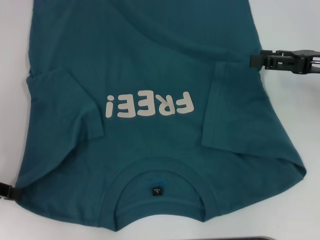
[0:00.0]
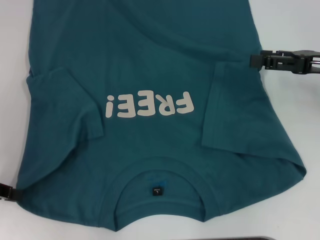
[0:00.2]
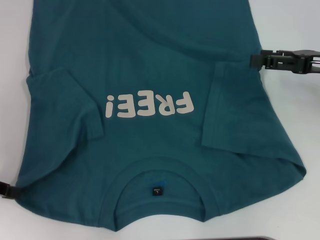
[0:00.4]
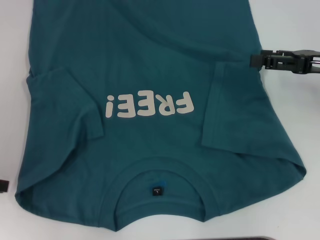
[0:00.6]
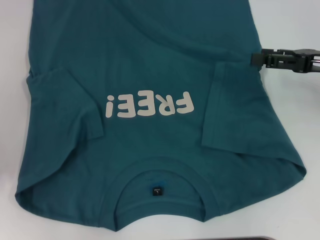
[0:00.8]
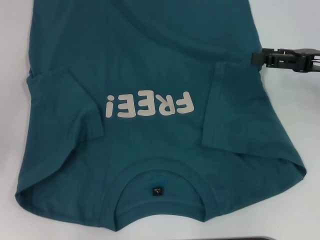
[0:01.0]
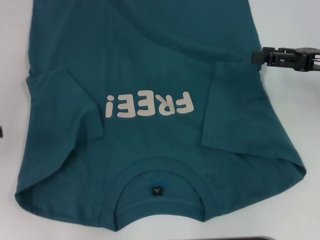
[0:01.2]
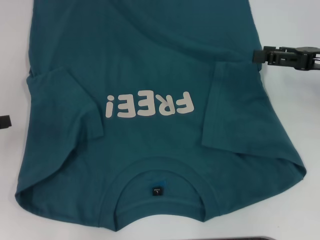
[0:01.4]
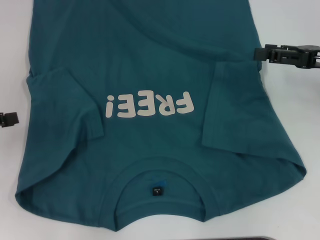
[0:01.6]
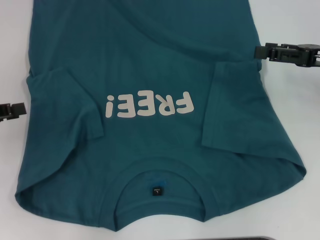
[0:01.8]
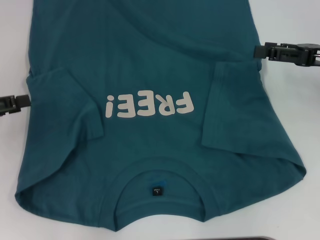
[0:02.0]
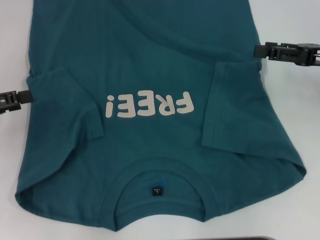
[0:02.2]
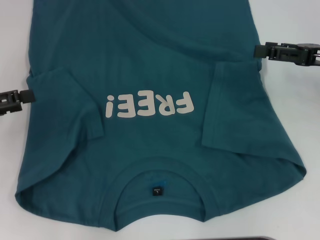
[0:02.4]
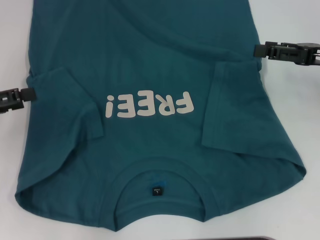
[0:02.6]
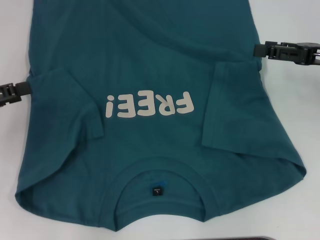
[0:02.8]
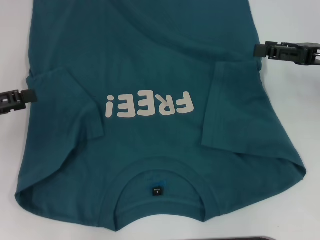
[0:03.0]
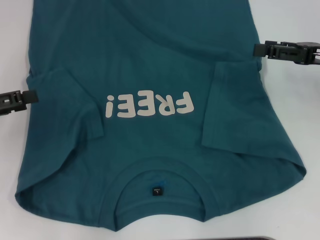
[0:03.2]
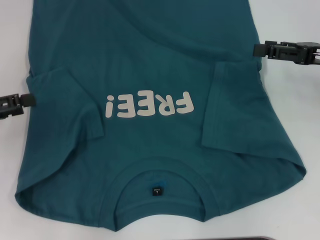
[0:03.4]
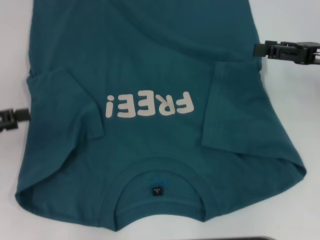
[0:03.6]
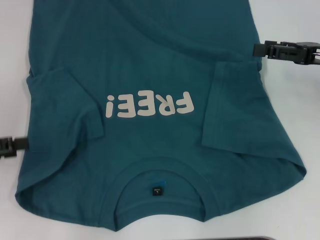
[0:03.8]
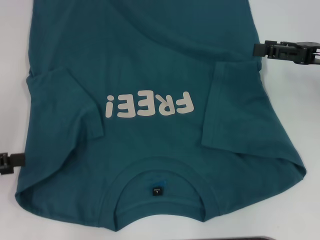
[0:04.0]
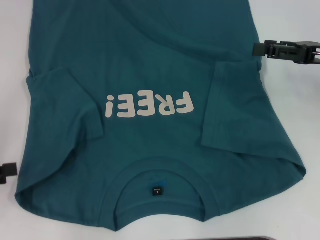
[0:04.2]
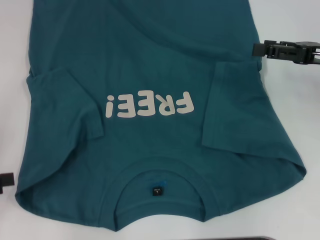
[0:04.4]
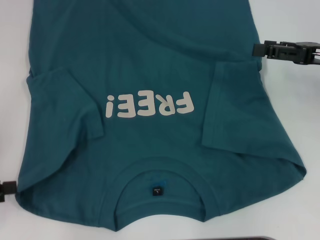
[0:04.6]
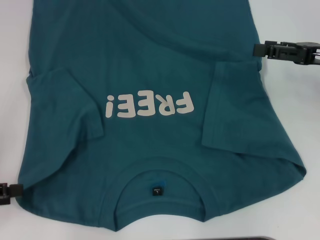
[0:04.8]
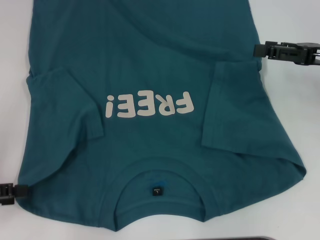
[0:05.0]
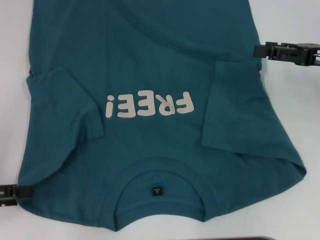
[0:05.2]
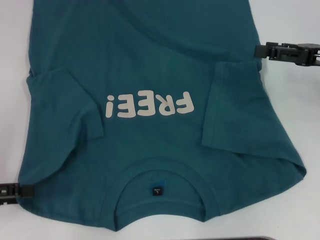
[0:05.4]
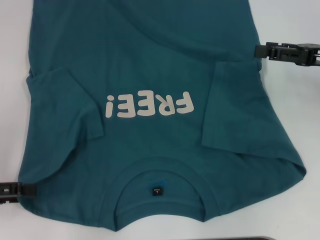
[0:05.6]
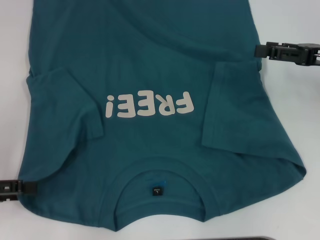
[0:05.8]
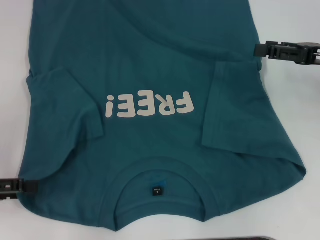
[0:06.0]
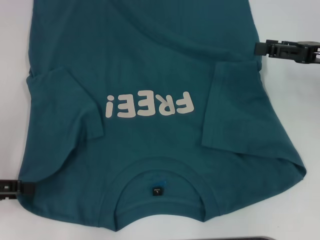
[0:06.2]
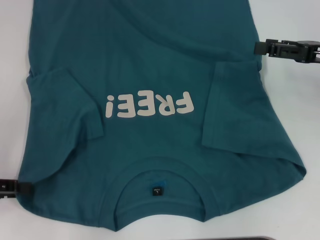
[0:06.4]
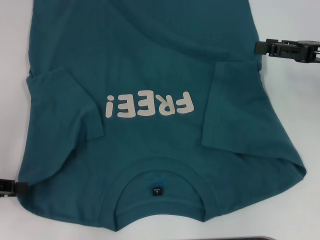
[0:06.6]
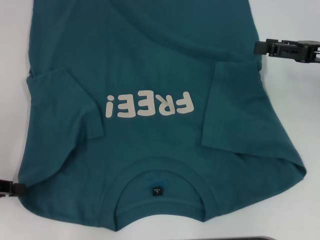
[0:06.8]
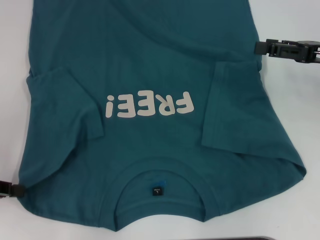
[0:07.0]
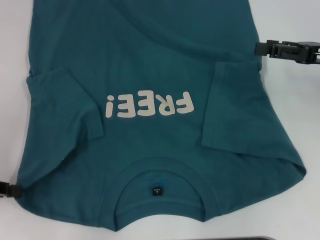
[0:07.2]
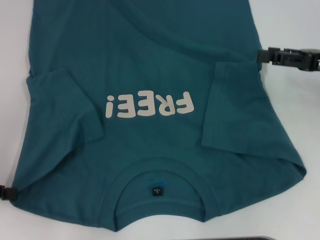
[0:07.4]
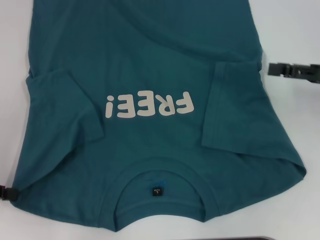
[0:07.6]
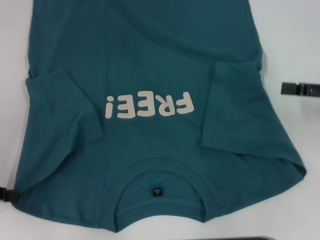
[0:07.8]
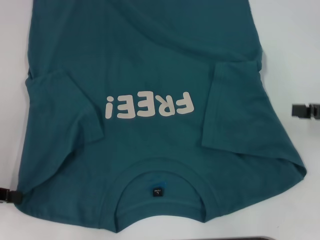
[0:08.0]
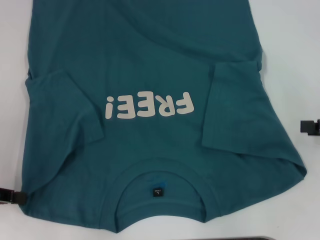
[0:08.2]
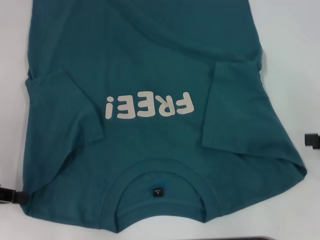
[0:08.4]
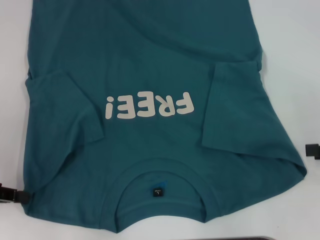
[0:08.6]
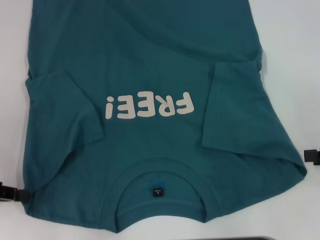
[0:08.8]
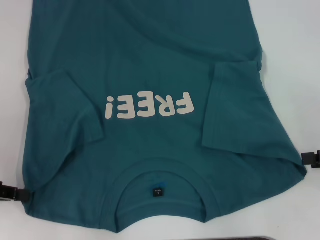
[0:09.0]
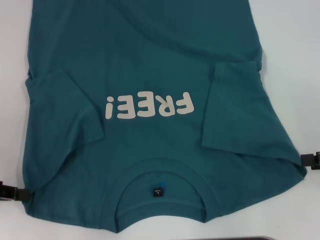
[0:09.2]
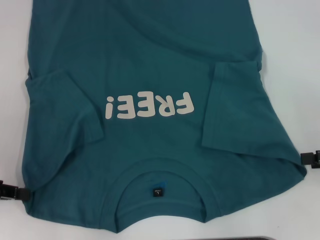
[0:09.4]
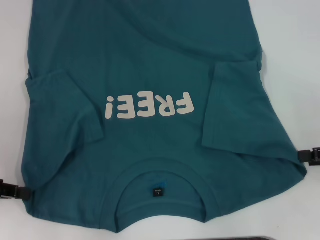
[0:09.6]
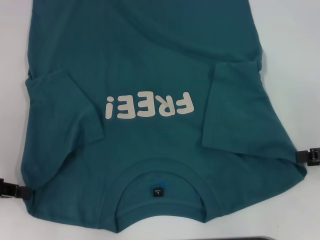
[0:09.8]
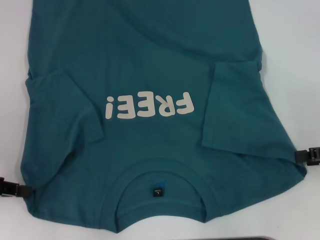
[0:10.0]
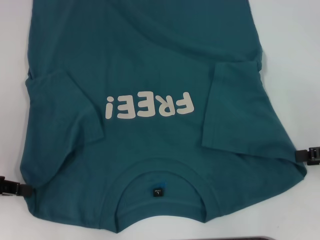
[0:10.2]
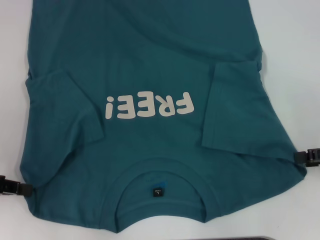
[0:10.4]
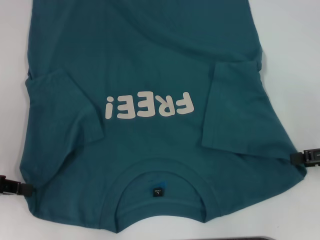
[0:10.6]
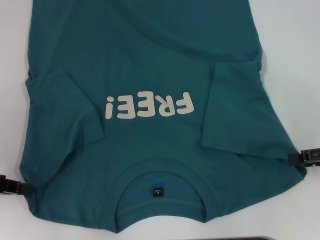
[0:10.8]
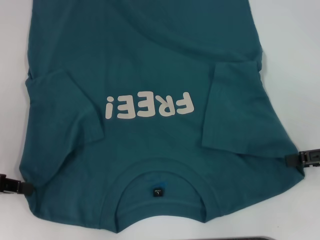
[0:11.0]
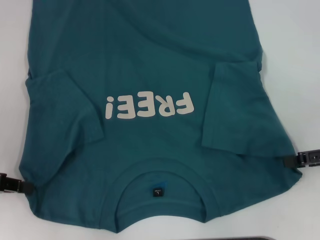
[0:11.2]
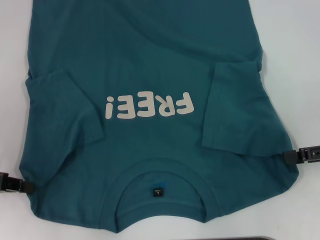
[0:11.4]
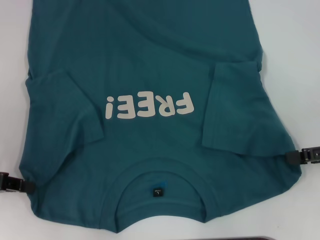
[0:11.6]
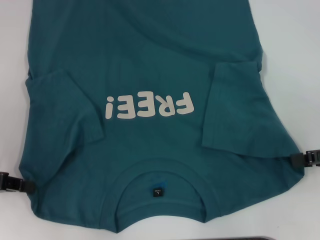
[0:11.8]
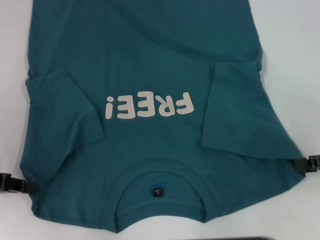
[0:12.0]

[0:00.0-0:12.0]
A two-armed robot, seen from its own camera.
Step, 0:00.0 to 0:07.2: Grab the bottom left corner with your left hand.
0:01.6 to 0:03.0: The left gripper opens up.
0:03.0 to 0:04.4: The left gripper travels backward by approximately 5 cm.
0:04.4 to 0:06.0: The grippers stay close to where they were, moving slightly.
0:06.0 to 0:07.6: The left gripper closes up.
0:07.6 to 0:09.0: The right gripper travels backward by about 5 cm.
0:09.0 to 0:12.0: There are only small adjustments of the grippers.

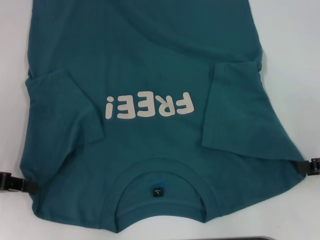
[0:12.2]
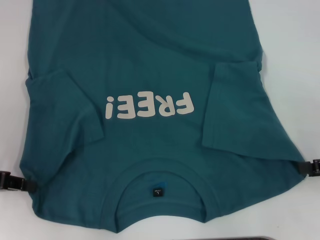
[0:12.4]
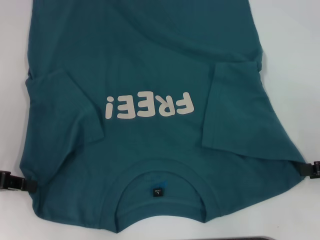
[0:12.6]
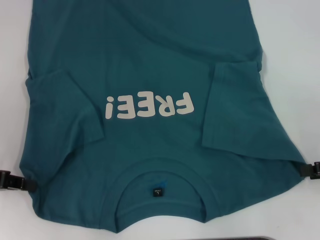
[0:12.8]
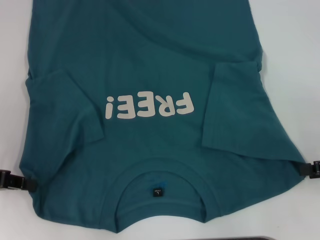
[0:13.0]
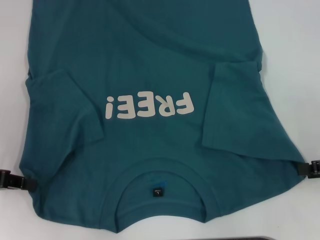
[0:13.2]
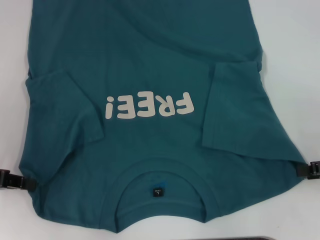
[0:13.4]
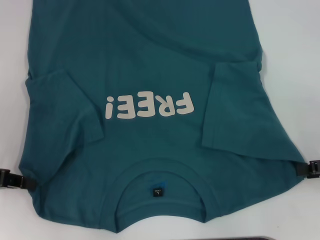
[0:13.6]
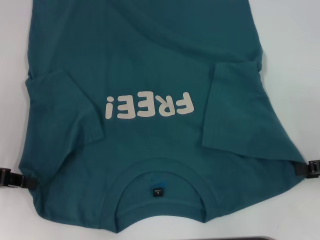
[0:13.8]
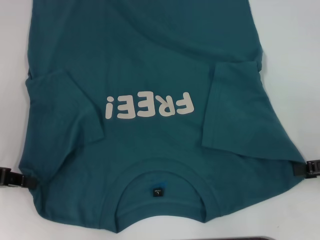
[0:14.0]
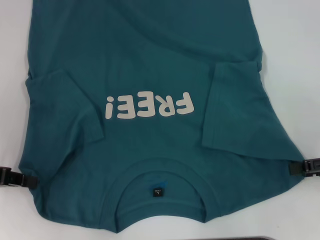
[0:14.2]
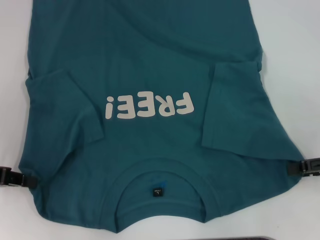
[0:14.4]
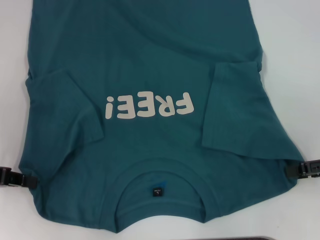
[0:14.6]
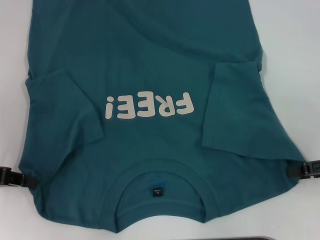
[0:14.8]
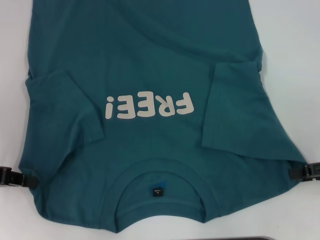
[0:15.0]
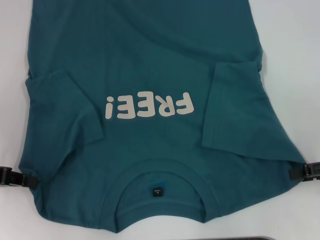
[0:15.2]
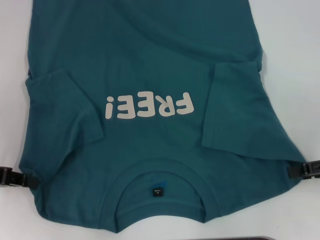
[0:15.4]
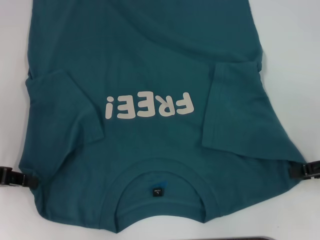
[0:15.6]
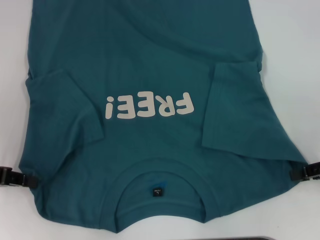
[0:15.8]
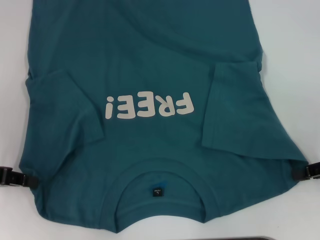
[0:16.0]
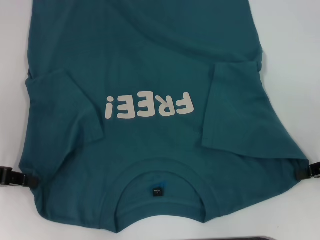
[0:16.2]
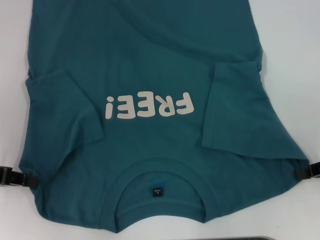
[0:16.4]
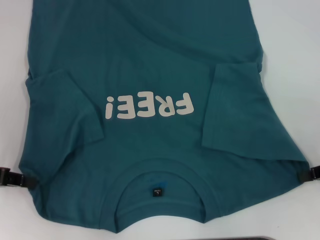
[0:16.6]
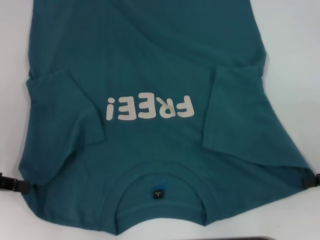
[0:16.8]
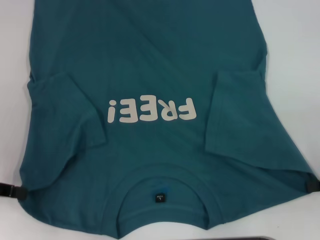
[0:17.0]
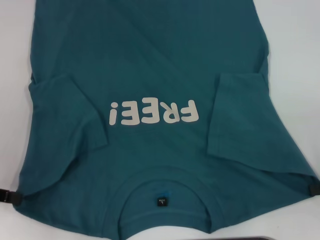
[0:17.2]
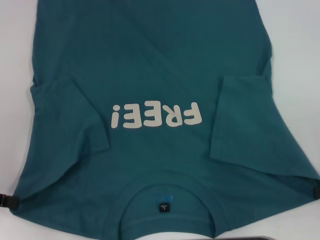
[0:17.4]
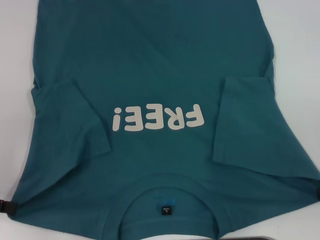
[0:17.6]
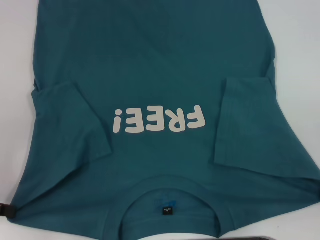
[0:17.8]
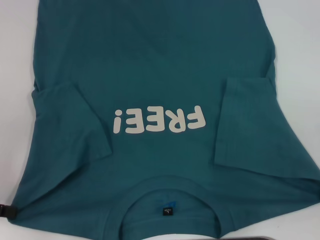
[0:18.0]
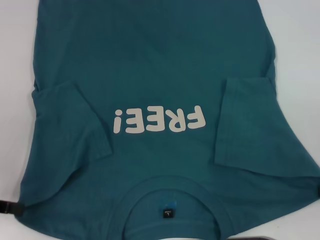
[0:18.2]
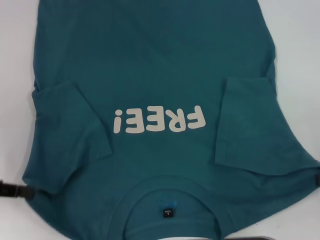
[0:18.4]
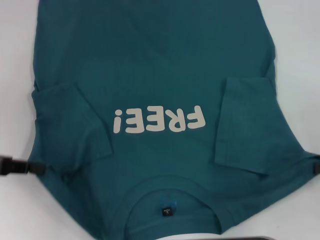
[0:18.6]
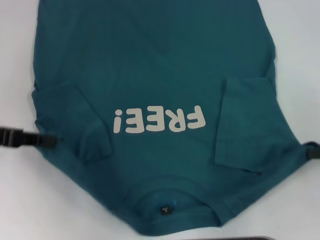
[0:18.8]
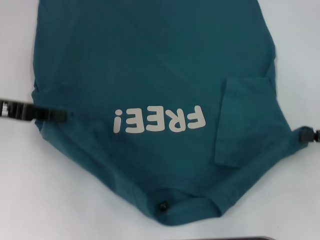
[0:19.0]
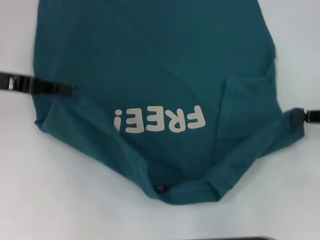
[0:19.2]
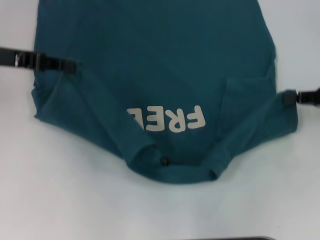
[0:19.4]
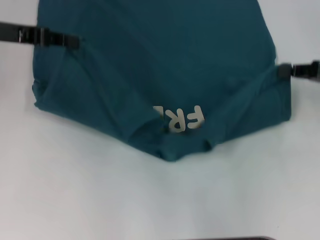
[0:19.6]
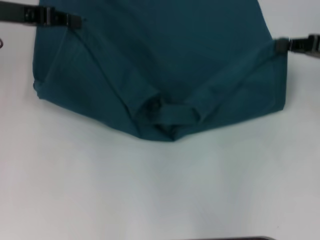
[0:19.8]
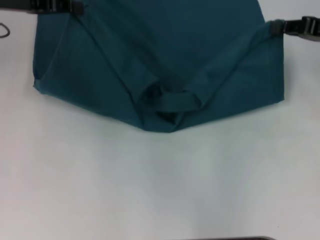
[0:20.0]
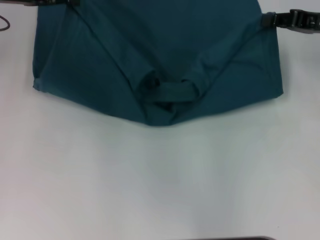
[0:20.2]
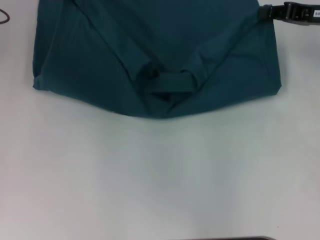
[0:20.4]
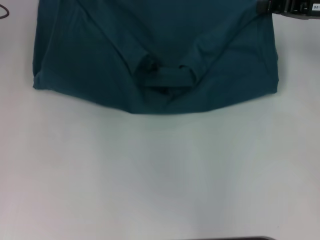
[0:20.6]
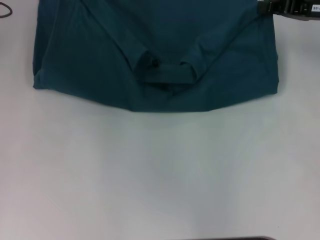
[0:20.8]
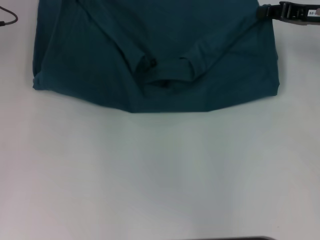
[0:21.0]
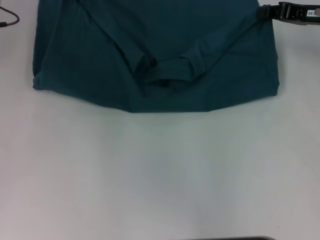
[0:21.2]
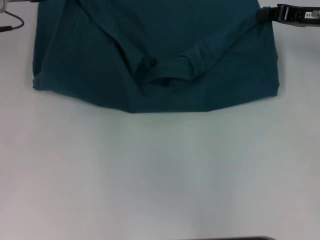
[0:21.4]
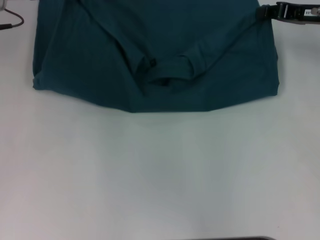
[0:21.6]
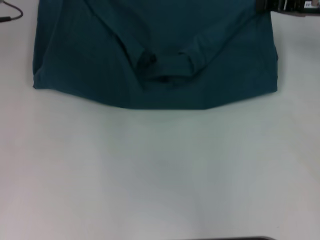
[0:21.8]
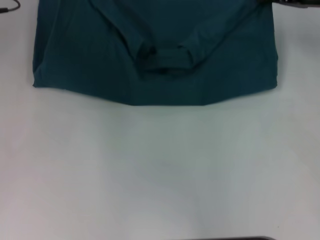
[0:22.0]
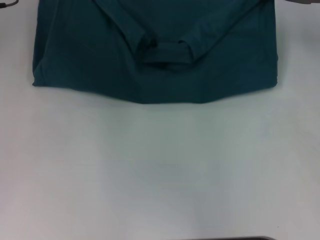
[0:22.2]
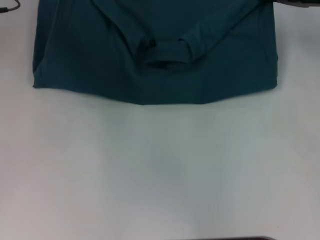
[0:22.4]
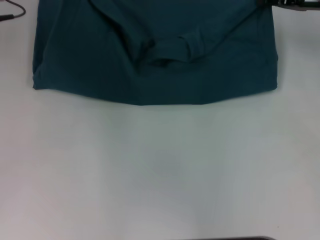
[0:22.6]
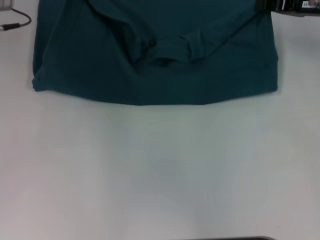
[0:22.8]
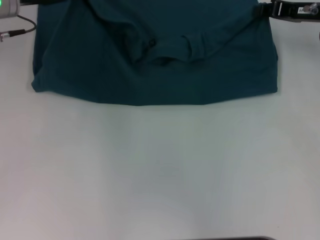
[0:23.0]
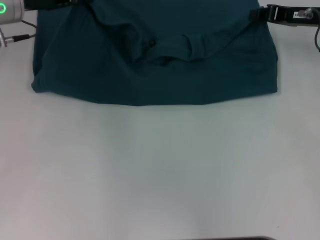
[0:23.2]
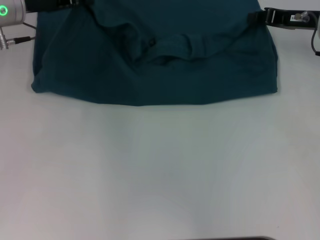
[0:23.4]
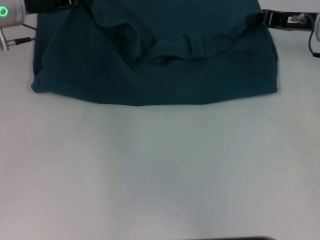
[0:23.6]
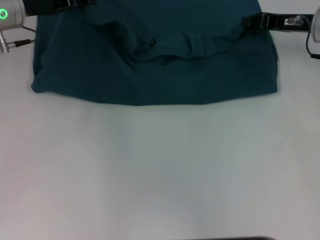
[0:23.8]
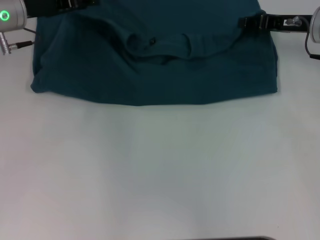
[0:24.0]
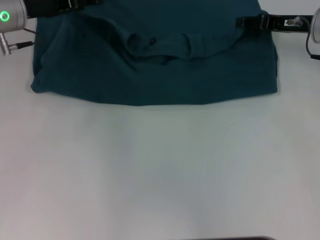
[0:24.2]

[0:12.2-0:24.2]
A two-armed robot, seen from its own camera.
0:12.2 to 0:13.8: The two grippers keep their place.
0:16.6 to 0:18.2: The right gripper changes place by approximately 5 cm.
0:18.2 to 0:19.8: The right gripper moves forward and upward, about 15 cm, while the left gripper heads forward, upward and to the right, covering some 20 cm.
0:19.8 to 0:21.2: The right gripper shifts some 5 cm forward.
0:21.2 to 0:22.6: The grippers stay close to where they were, moving slightly.
0:22.6 to 0:24.2: The right gripper opens up, while the left gripper opens its fingers.
